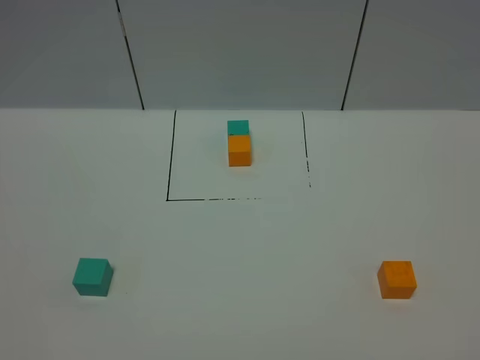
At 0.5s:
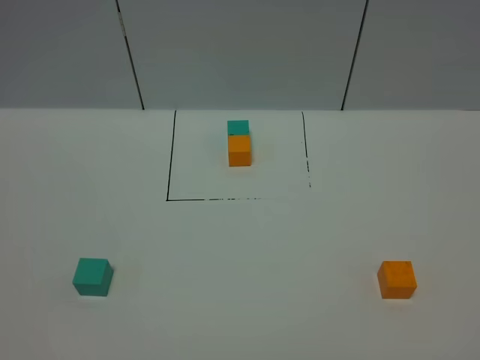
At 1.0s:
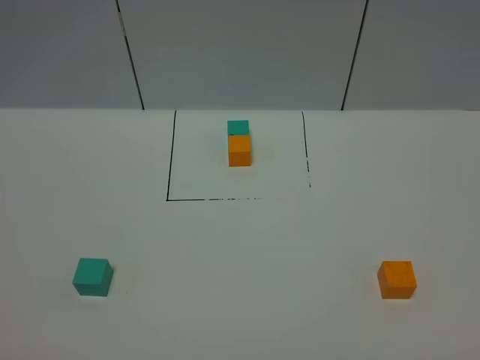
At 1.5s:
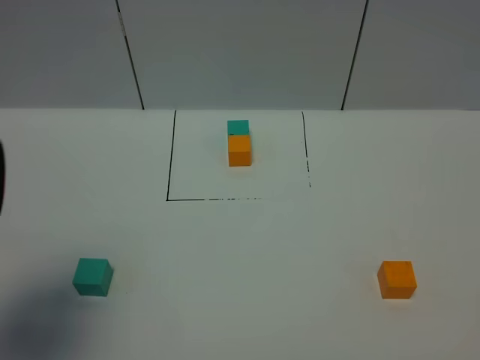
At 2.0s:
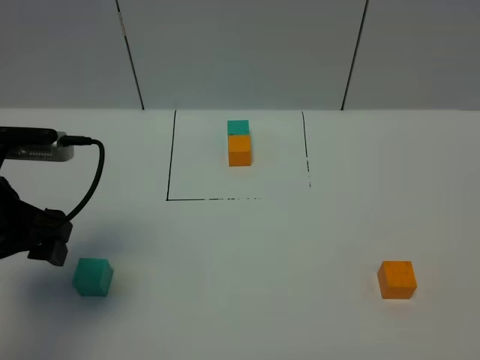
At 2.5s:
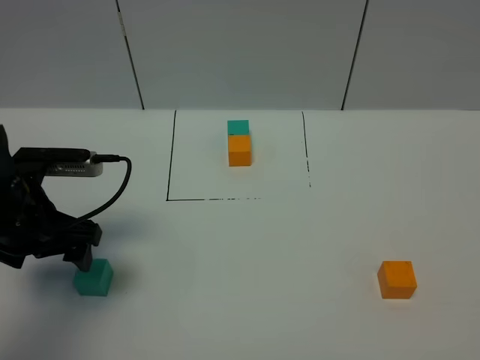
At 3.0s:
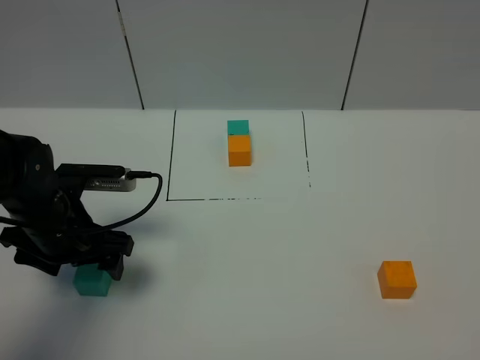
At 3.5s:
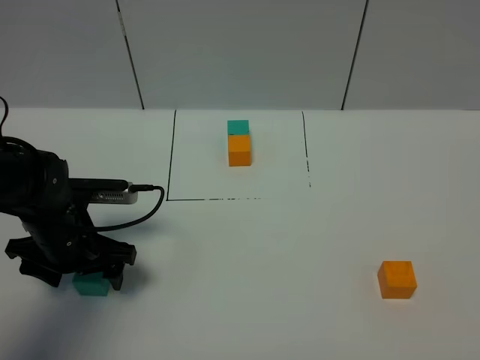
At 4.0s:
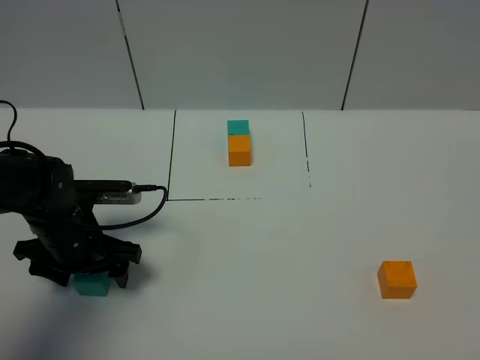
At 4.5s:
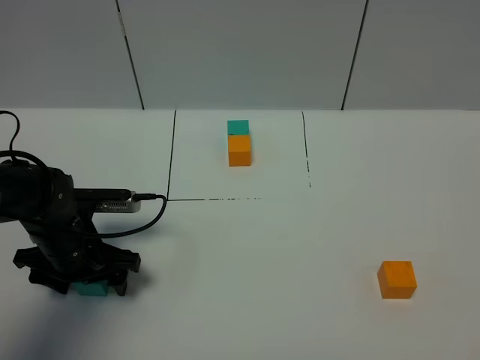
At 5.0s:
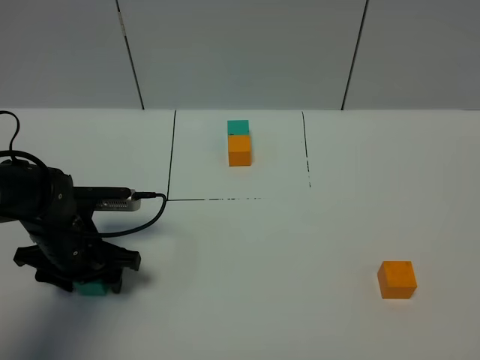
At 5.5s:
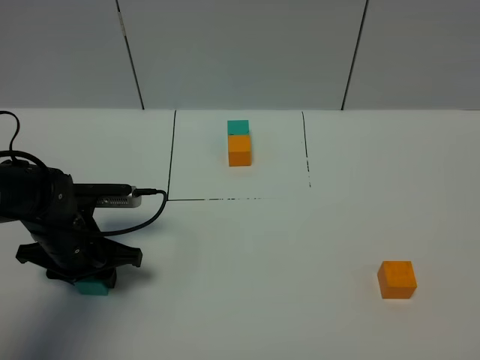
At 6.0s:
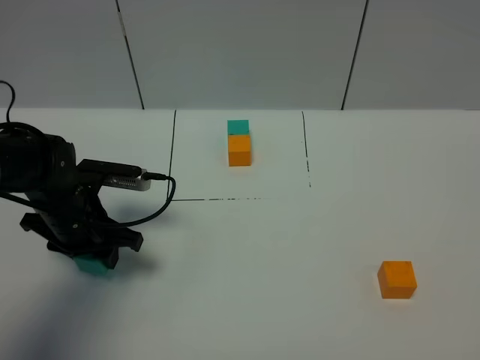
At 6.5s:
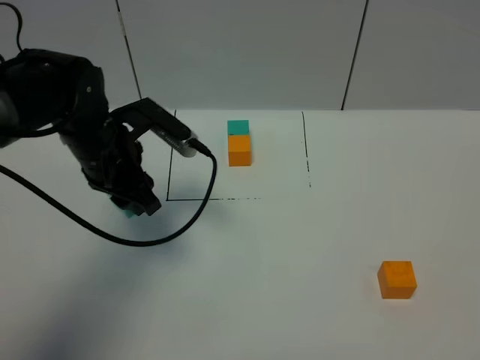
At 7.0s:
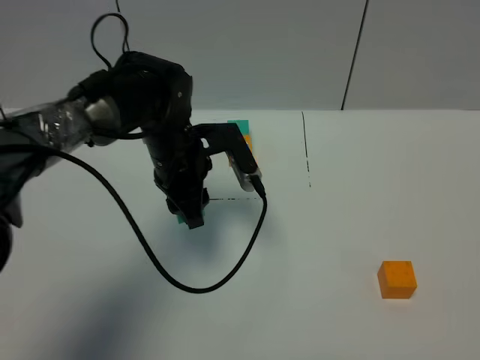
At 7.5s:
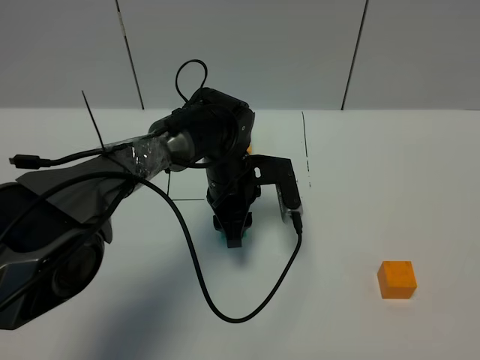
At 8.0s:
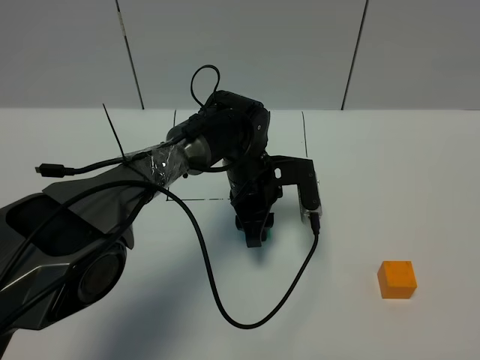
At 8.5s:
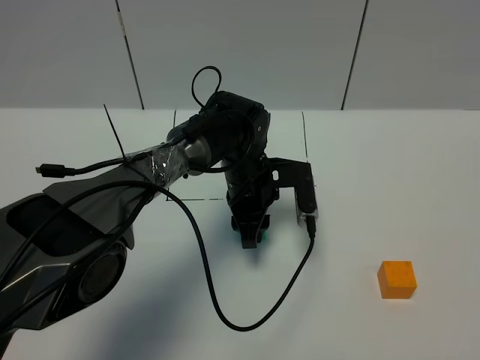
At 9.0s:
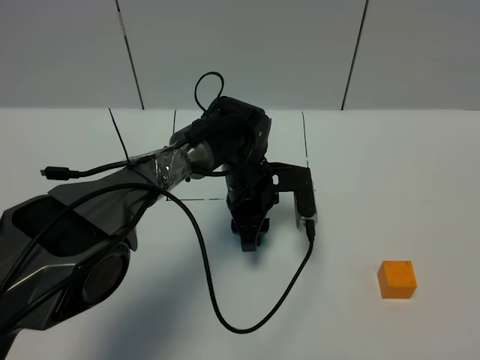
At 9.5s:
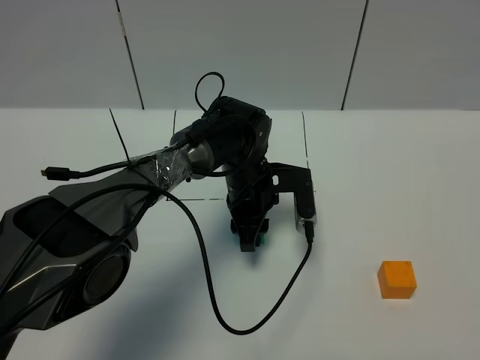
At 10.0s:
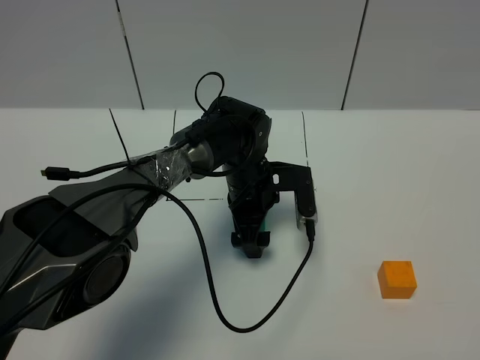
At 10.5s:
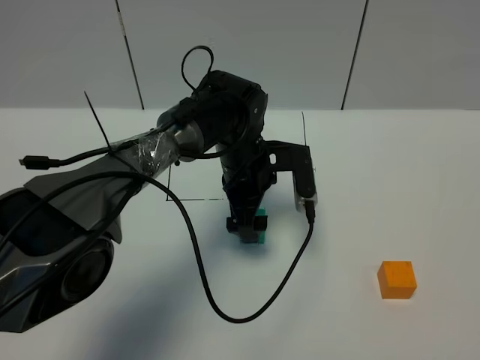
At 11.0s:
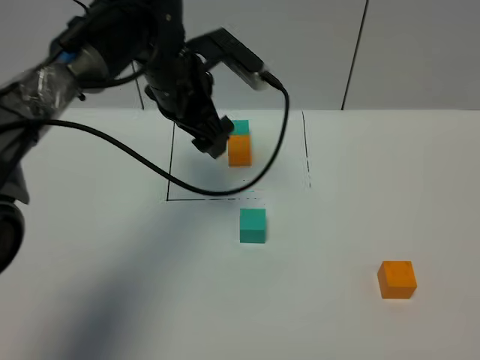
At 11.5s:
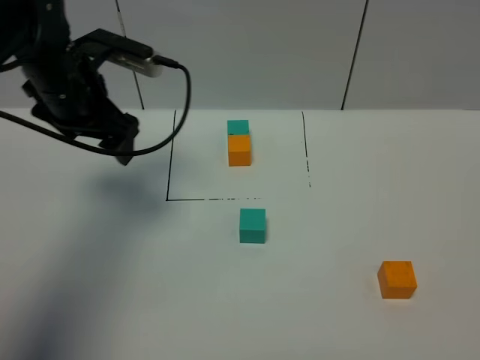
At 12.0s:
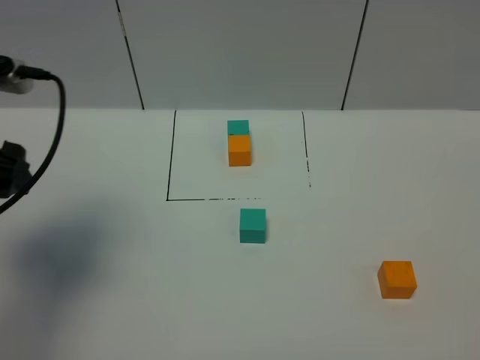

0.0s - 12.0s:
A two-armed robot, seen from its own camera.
Task of the whole recording: According to the building block template in front, assemble the scattered blocks together.
Step, 1.5s - 10.5s: Put the green cube in the center of the table.
0.0s - 2.0s: The left gripper heads forward, covering approximately 25 cm, and opens its fingers.
2.0s - 4.0s: The left gripper heads downward and forward, covering some 15 cm.
4.0s - 6.0s: The left gripper closes its fingers.
6.0s - 8.0s: The left gripper goes about 20 cm to the right.
8.0s - 10.0s: The left gripper opens its fingers.
10.0s - 12.0s: The left gripper moves to the left, upward and backward, roughly 40 cm.

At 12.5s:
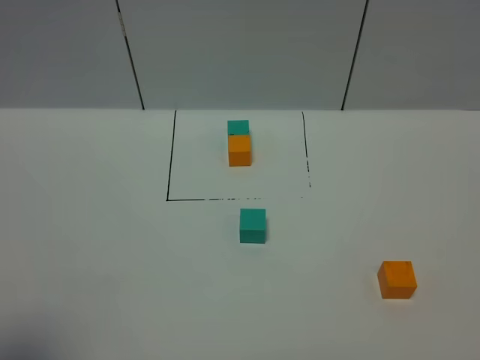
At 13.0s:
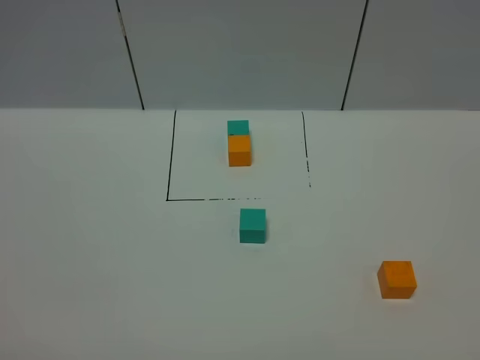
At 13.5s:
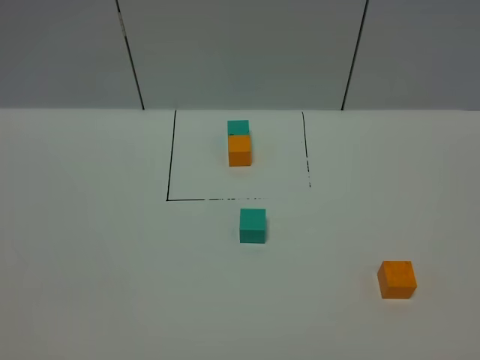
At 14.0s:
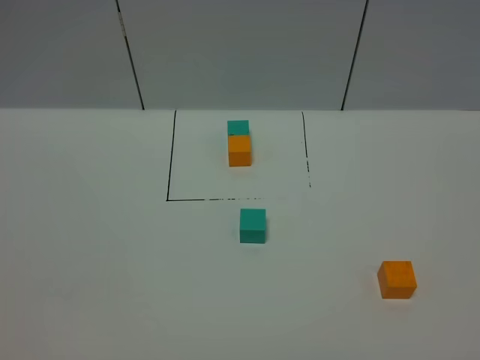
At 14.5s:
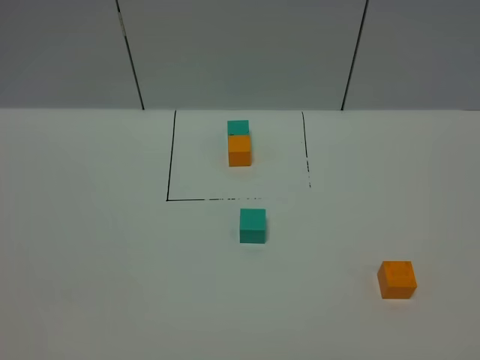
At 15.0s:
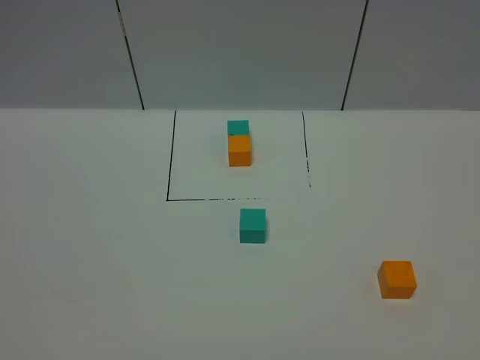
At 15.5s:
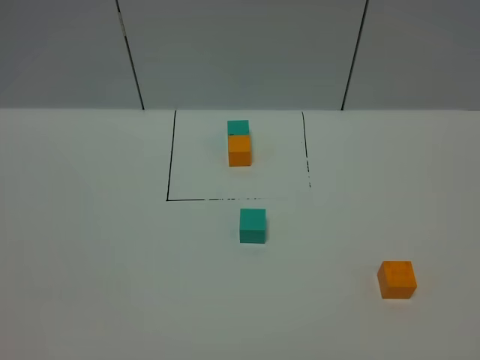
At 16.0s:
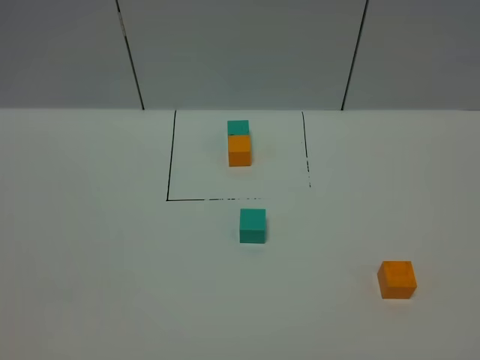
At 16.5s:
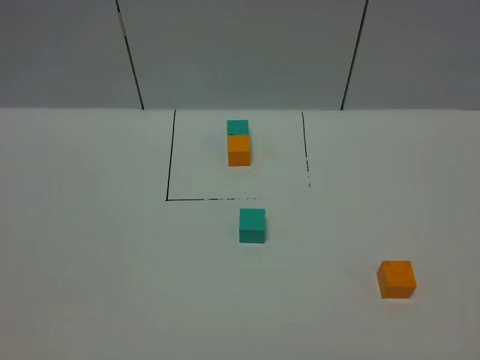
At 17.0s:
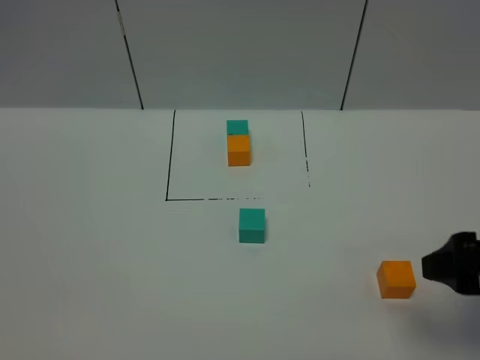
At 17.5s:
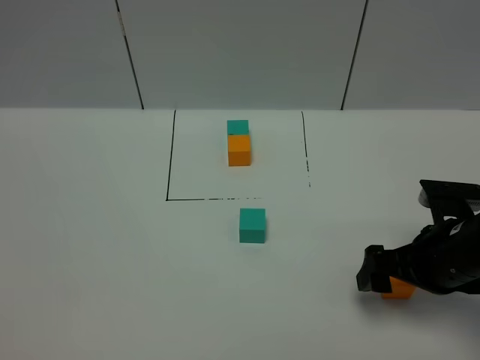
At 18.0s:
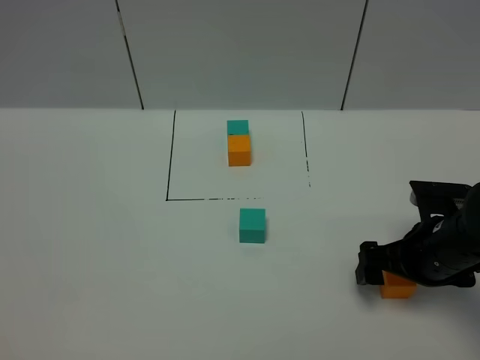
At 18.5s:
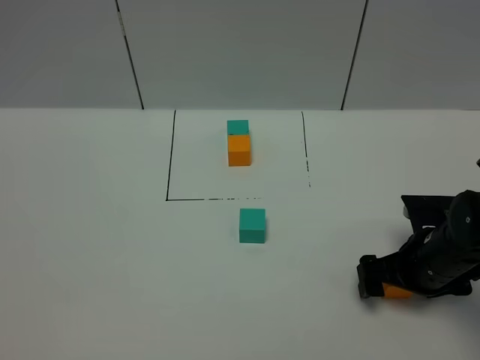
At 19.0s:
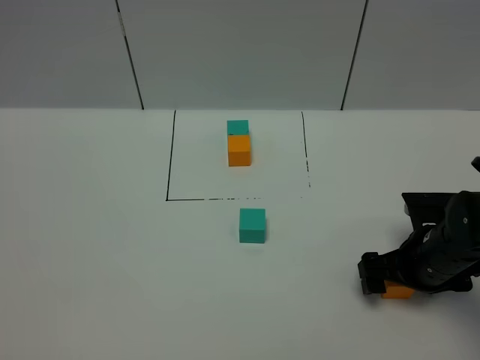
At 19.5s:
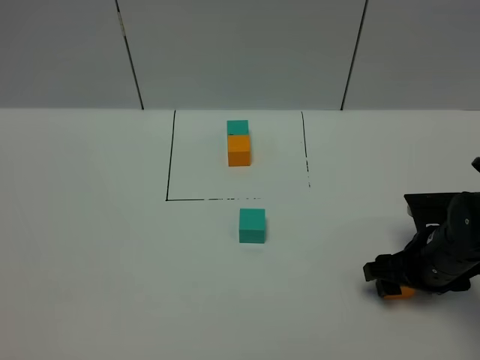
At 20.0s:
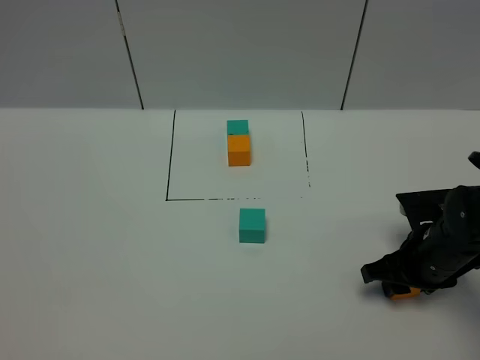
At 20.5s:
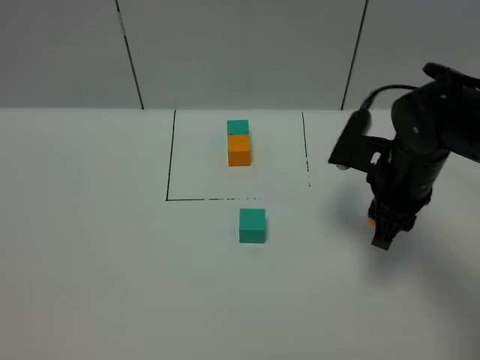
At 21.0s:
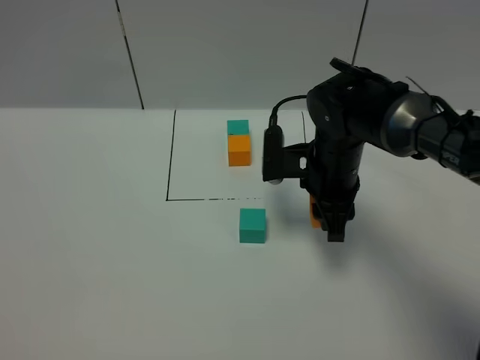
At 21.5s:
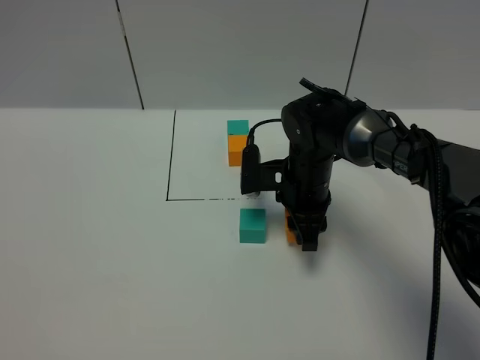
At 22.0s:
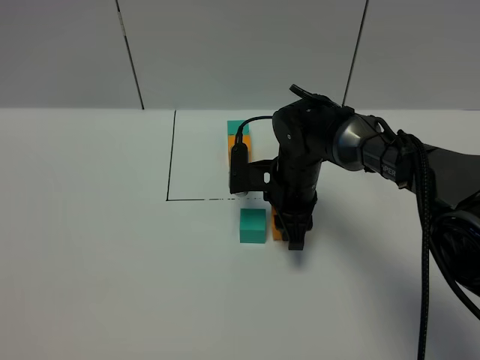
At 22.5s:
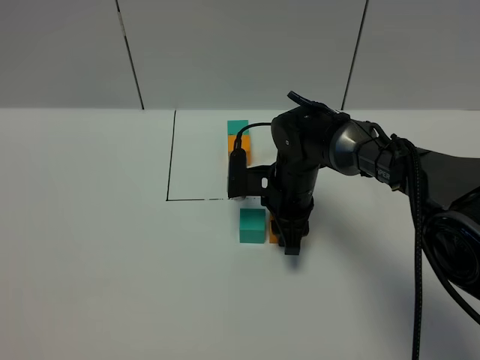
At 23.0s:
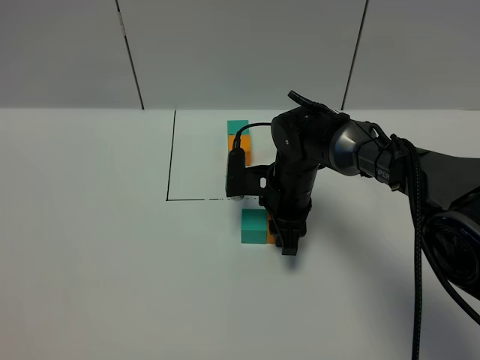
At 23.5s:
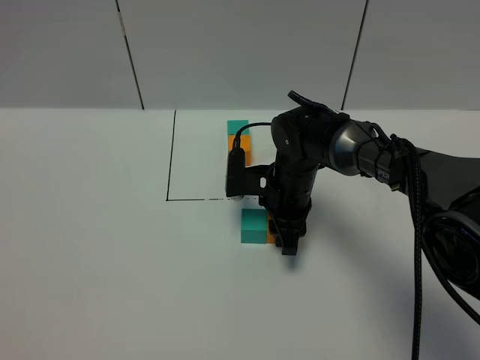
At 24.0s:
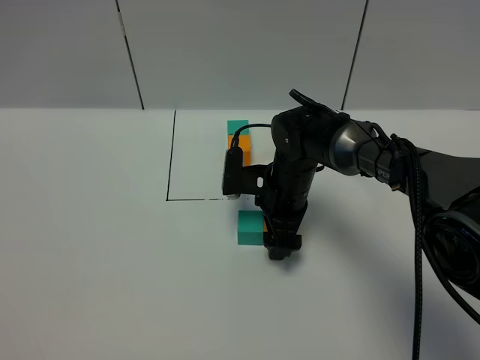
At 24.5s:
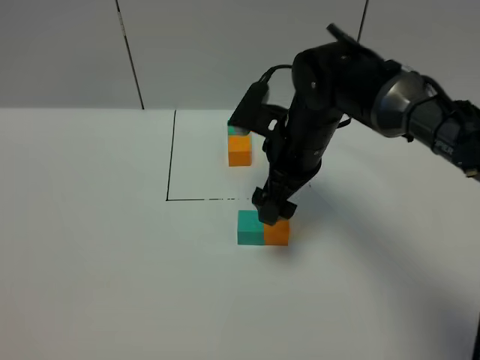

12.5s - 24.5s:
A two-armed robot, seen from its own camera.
Task of the whole recording: According to the building block template in front, assemble the scattered blocks together.
16.5s - 18.5s: The right gripper is displaced forward and downward by approximately 35 cm.
18.5s - 20.5s: The right gripper shifts some 15 cm upward, forward and to the left, and closes up.
20.5s - 22.5s: The right gripper goes some 15 cm to the left, downward and forward.
22.5s - 24.5s: The right gripper heads upward, covering roughly 10 cm, and opens up.

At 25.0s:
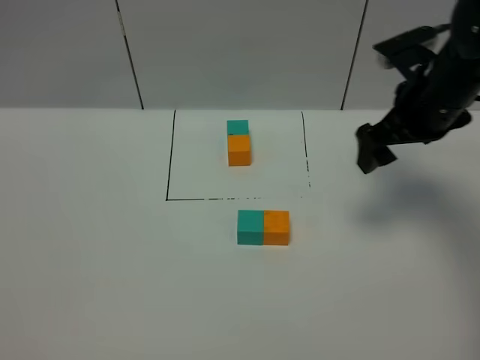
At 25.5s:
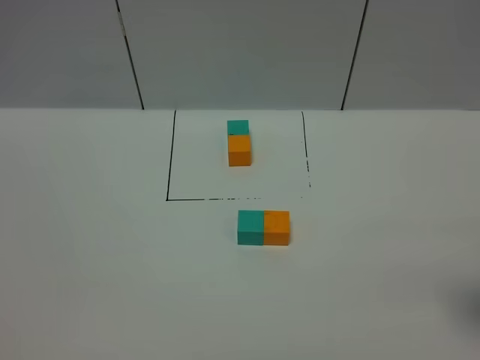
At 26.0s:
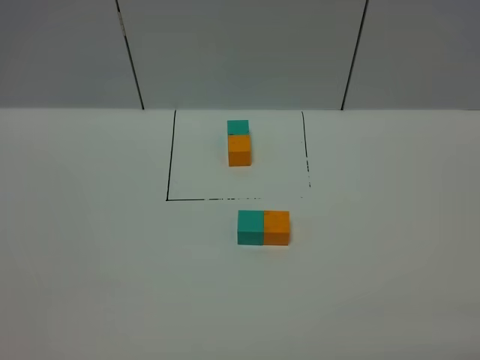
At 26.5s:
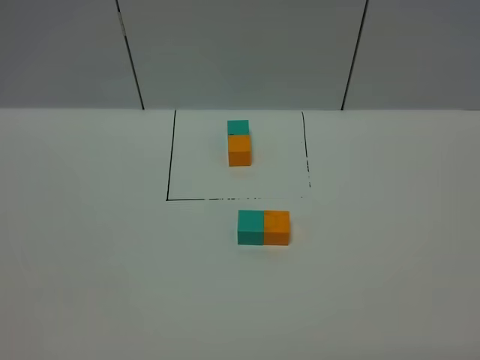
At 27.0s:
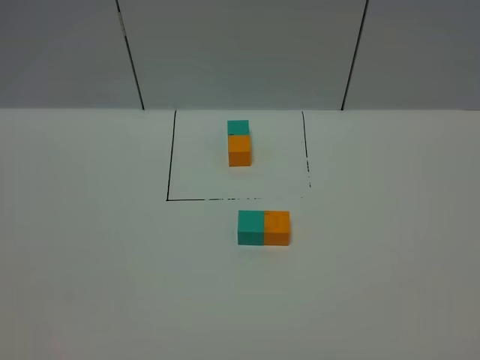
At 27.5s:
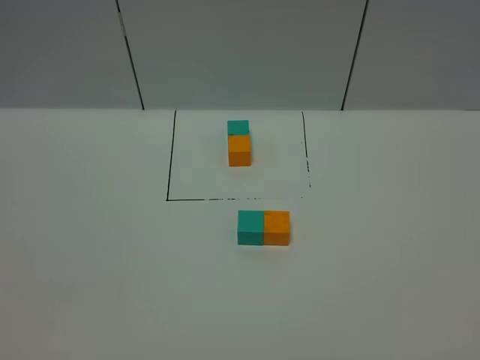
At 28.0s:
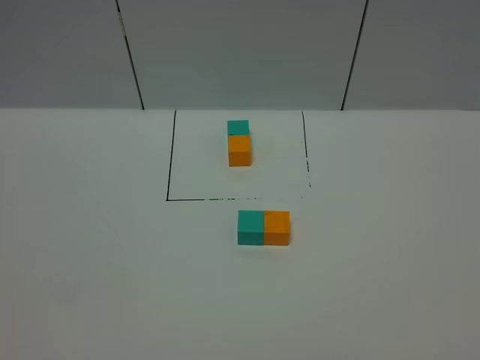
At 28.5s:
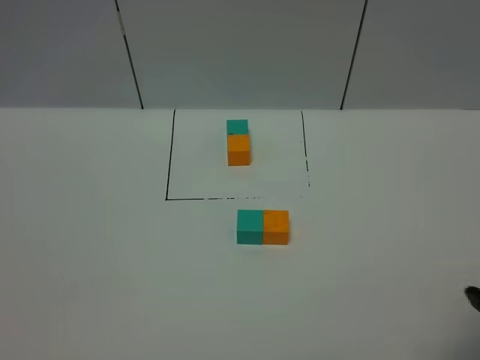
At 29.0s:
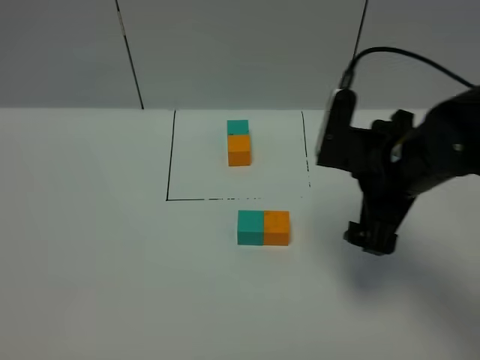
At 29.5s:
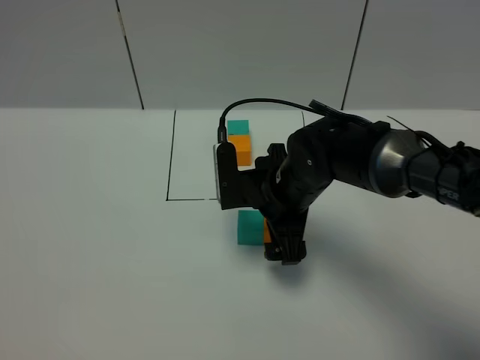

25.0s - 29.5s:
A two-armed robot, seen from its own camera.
Task of the whole recording: According to the building block template in front, assemble the scattered blocks together.
25.0s - 27.0s: The right gripper goes approximately 40 cm backward.
27.0s - 29.5s: The right gripper moves forward and to the left, approximately 40 cm.
